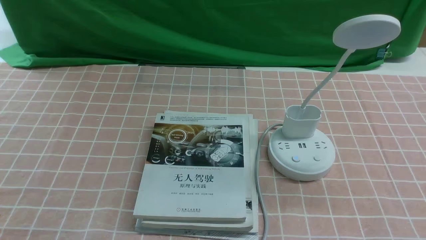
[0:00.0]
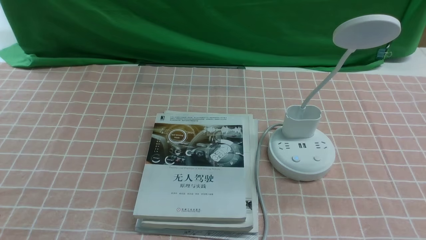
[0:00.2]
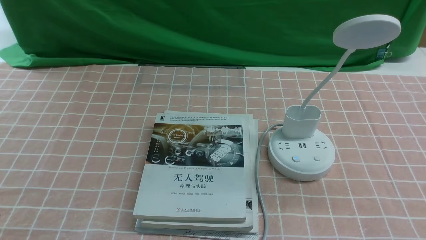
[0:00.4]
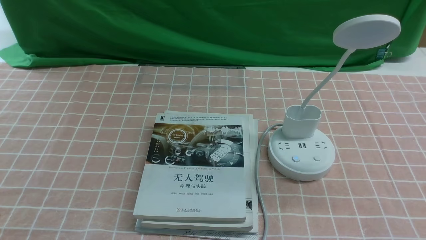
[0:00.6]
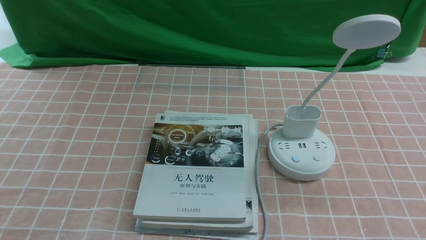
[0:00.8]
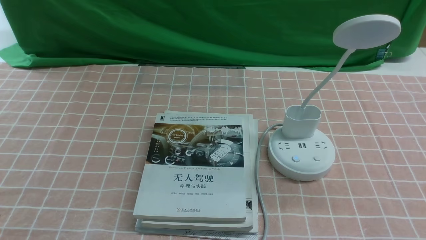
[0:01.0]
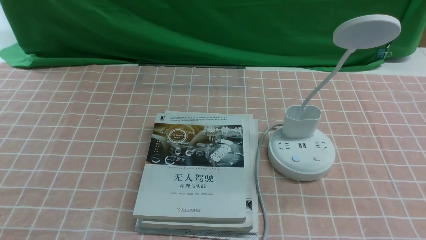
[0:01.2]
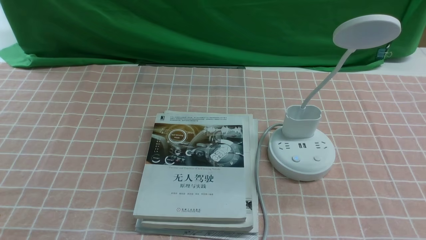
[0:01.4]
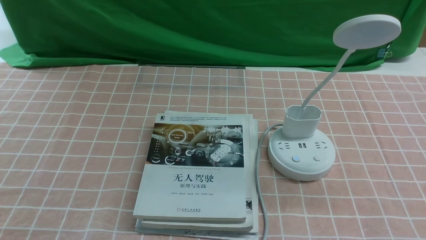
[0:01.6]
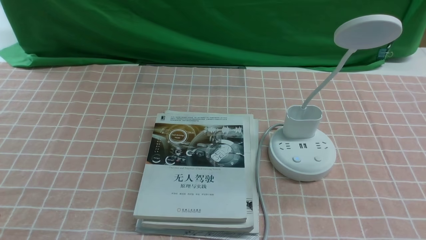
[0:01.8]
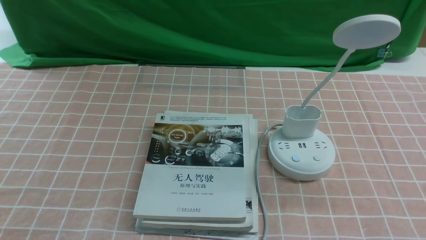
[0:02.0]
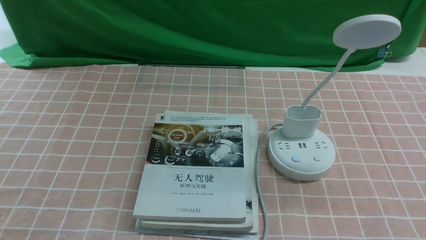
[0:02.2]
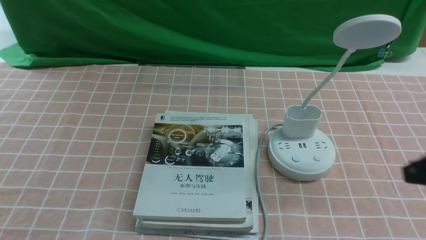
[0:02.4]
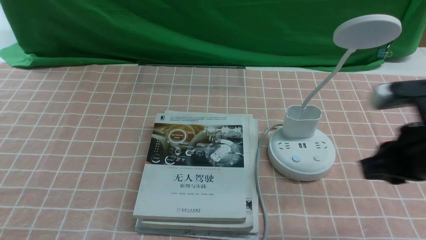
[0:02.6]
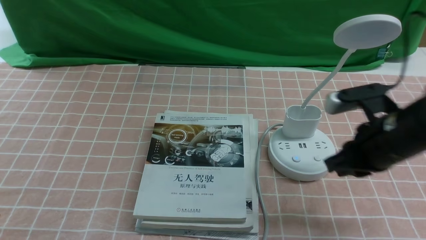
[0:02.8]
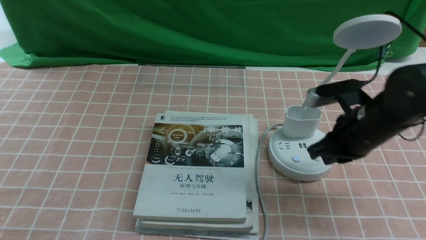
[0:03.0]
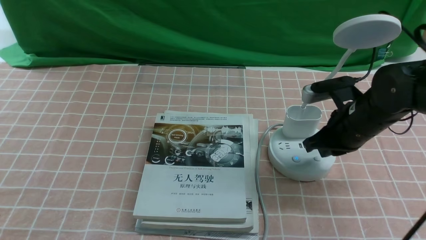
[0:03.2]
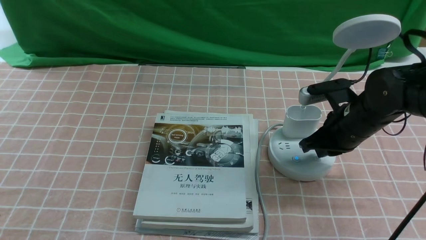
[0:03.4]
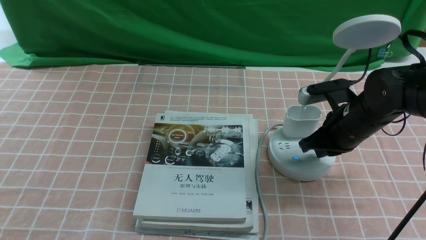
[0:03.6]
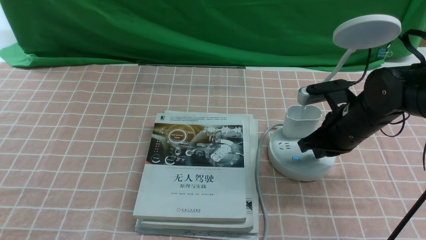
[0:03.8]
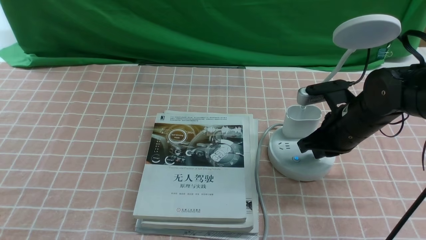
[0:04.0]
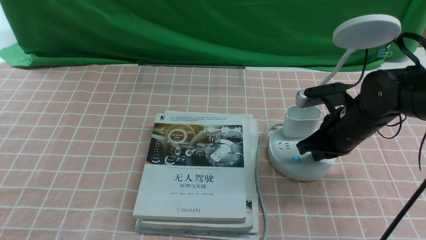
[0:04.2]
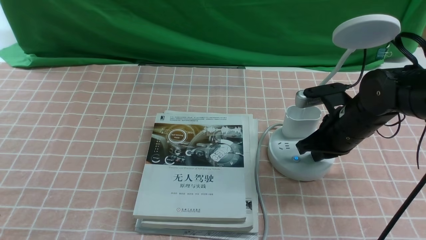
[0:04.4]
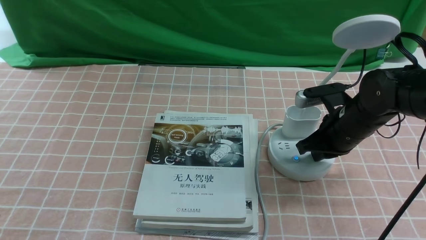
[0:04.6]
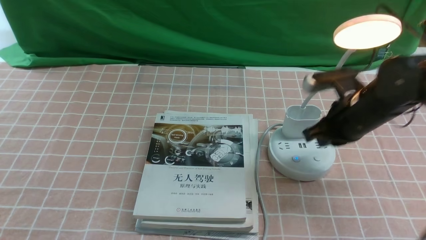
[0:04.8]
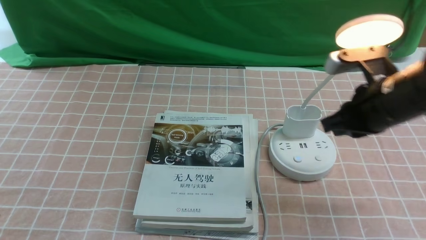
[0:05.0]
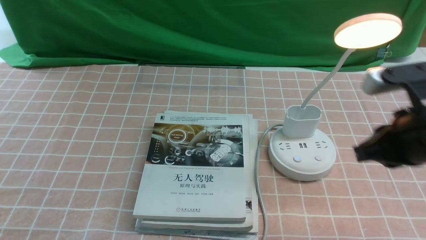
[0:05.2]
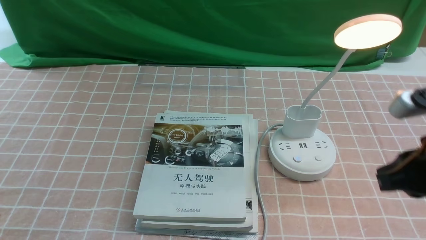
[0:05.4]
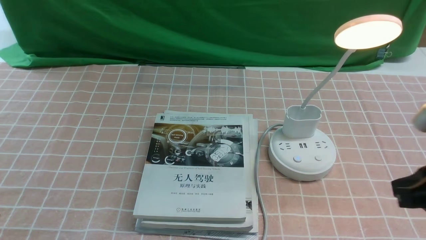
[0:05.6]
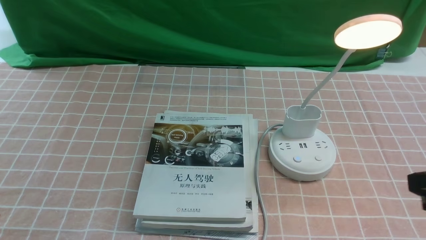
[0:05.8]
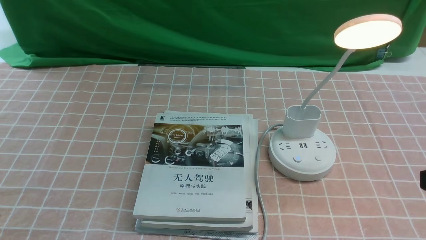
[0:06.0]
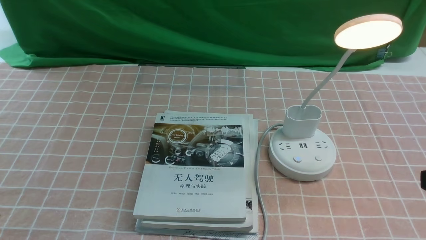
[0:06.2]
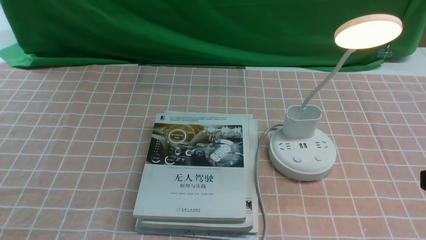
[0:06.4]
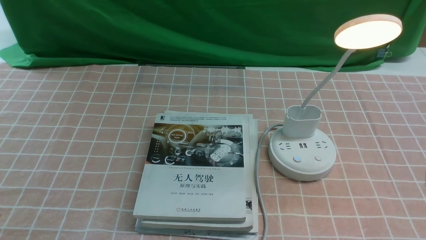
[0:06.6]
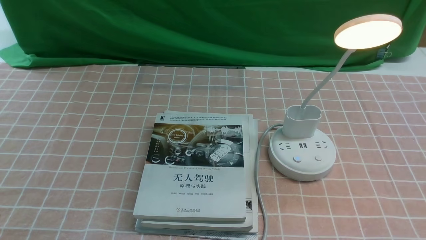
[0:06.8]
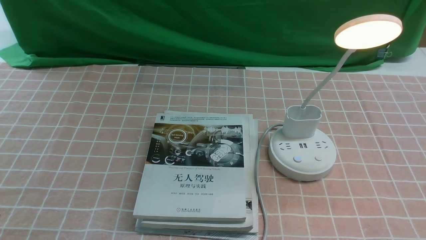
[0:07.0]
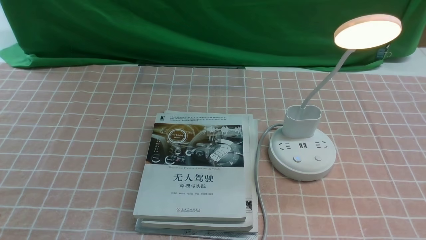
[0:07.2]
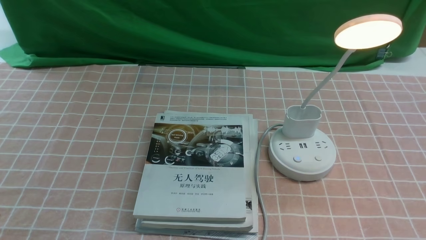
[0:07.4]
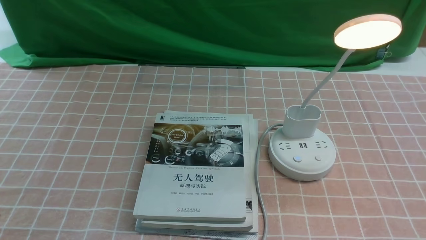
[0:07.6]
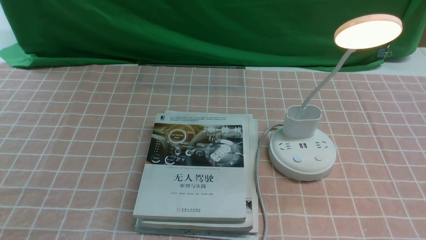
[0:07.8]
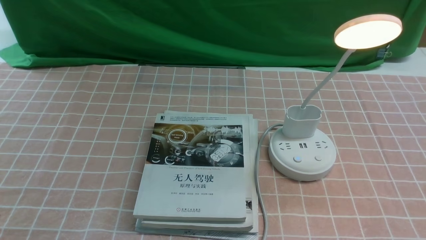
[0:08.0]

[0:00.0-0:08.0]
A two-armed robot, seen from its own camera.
Step, 0:00.0 to 0:04.8: use the right arm to press the button switch on the lamp holder.
0:01.6 to 0:03.2: The right gripper goes roughly 30 cm forward and to the left, and closes.
0:03.2 to 0:04.8: The grippers make only small movements.
0:04.8 to 0:06.4: The right gripper is displaced backward and upward by some 25 cm.
